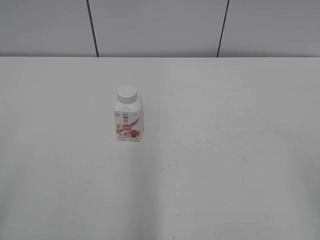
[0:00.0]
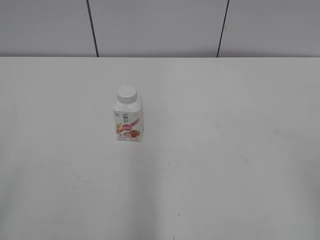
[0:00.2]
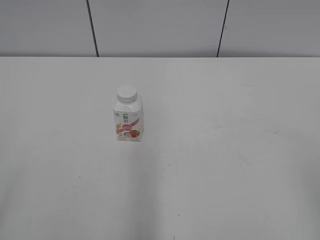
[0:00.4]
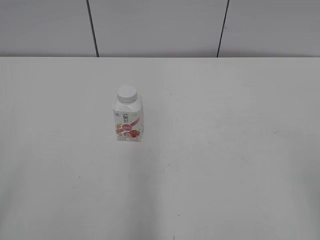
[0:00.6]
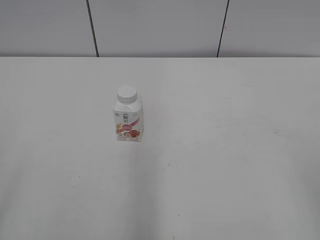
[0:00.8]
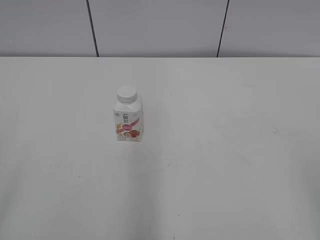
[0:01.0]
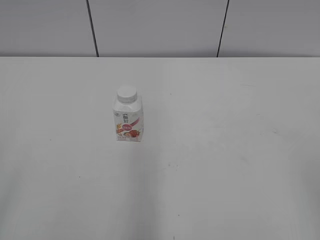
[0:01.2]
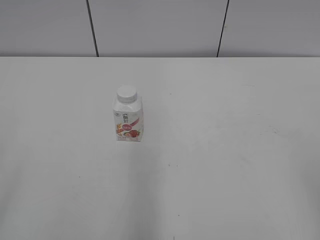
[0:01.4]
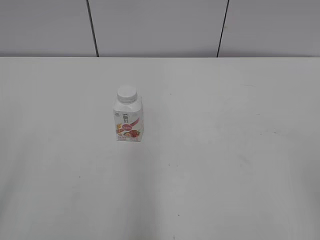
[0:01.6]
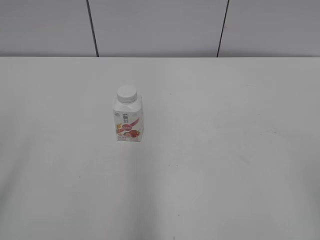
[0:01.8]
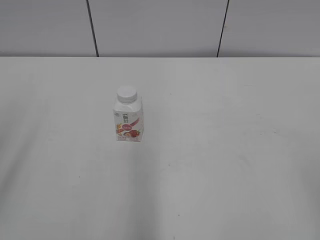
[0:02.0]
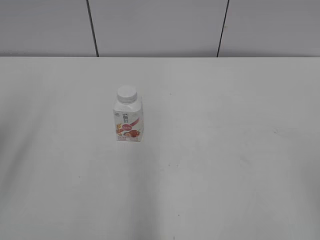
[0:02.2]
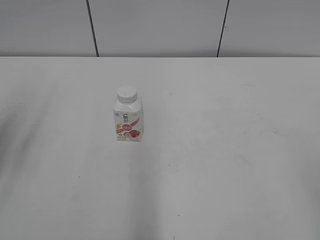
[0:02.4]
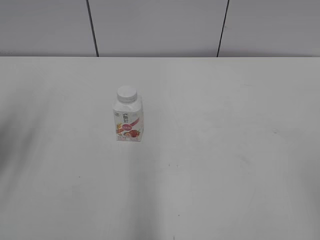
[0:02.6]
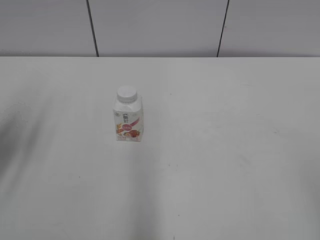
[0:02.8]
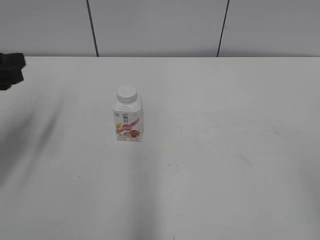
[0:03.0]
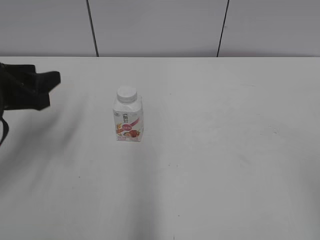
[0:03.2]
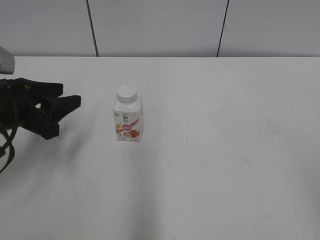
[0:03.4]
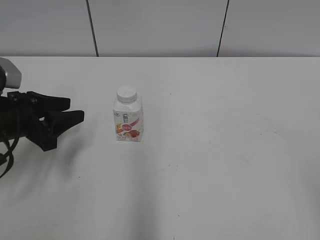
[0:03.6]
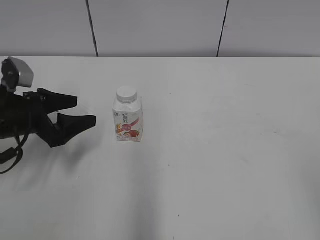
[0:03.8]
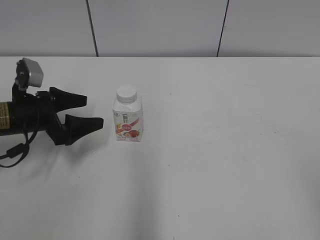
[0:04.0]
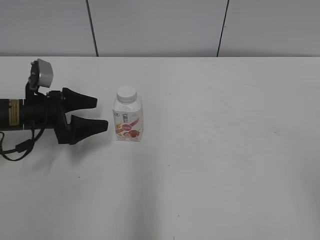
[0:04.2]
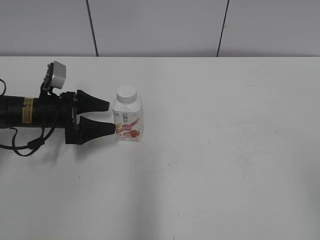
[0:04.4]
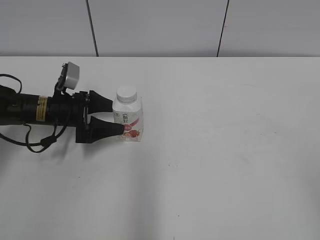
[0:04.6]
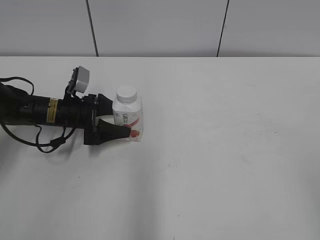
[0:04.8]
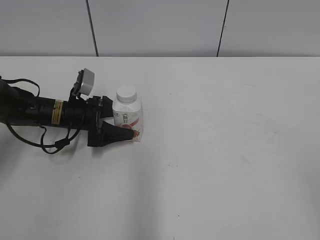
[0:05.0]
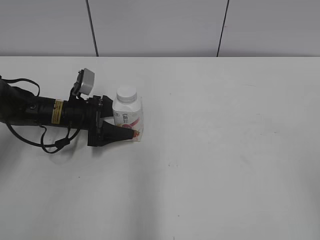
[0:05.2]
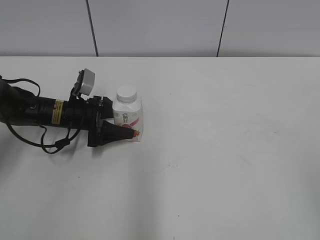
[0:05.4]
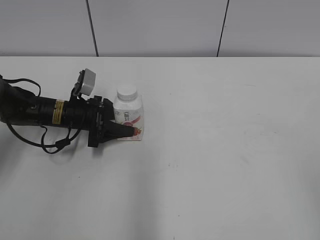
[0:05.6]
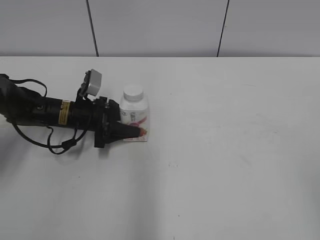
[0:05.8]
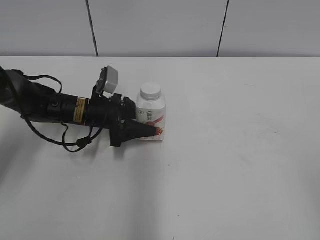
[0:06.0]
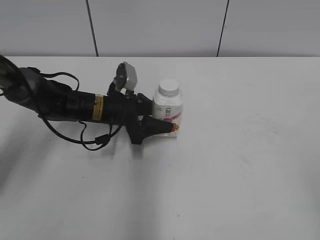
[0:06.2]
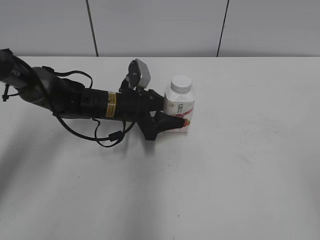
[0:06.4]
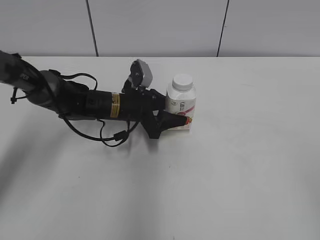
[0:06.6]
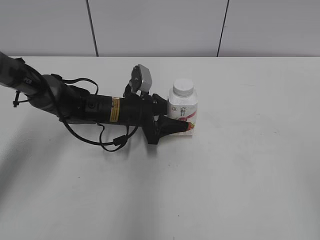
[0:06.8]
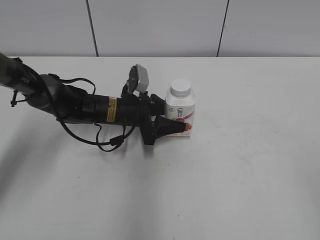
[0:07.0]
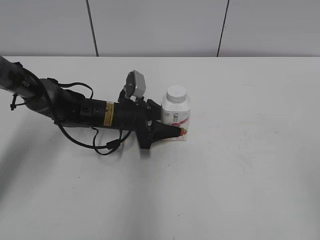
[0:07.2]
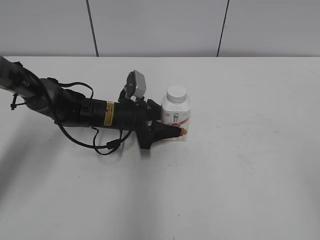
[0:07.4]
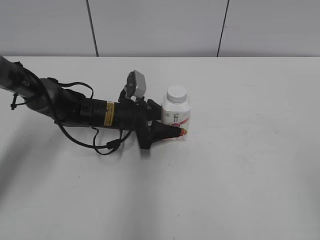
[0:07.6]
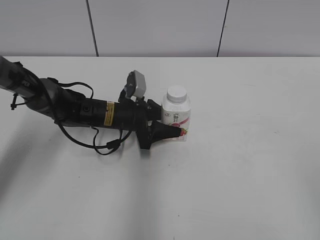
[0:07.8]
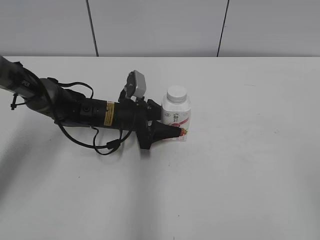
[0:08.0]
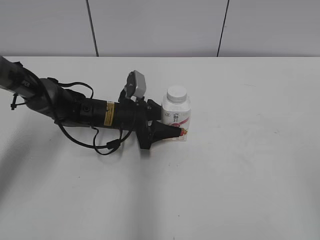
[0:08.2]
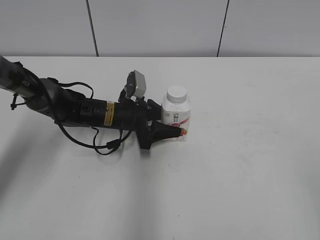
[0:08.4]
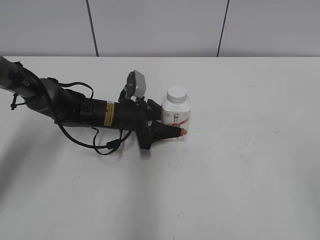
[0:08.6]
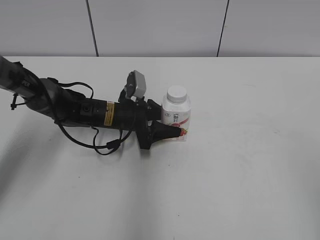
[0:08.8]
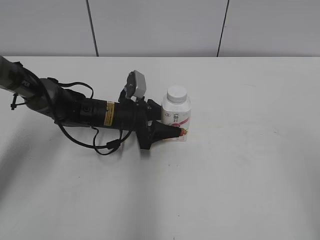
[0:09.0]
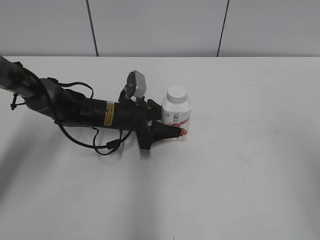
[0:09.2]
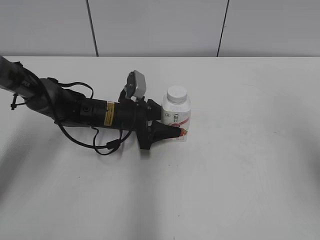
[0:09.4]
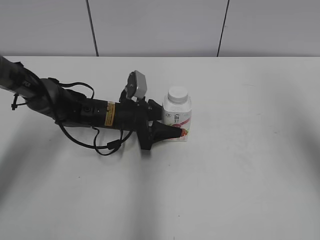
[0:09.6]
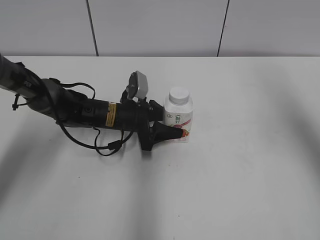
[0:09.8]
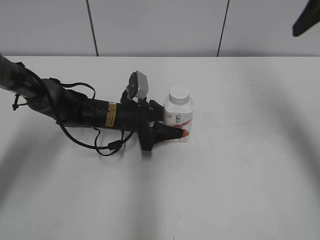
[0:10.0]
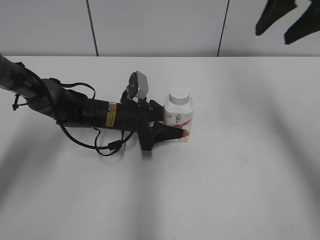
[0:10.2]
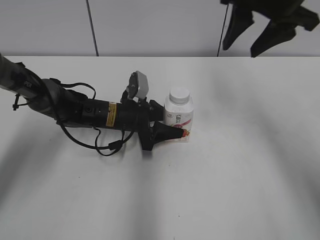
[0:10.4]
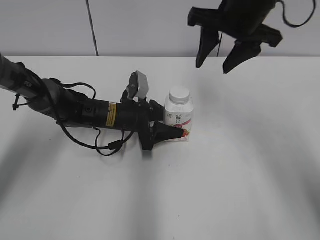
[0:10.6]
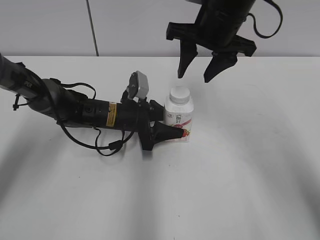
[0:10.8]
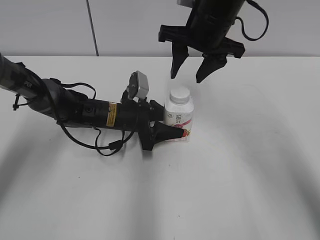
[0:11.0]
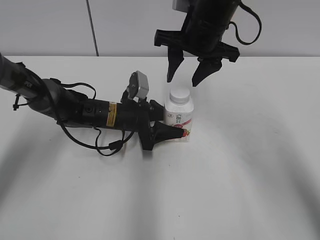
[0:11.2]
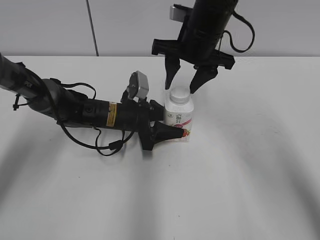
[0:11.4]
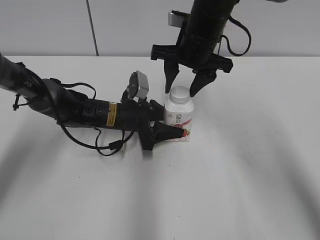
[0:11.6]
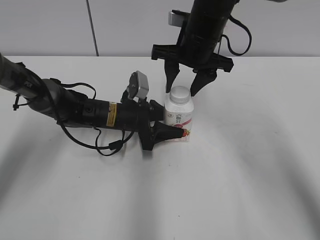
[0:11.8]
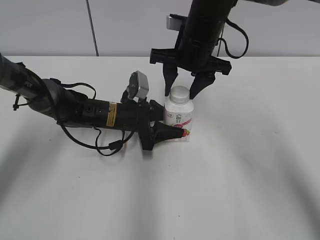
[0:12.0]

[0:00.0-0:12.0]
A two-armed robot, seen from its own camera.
Step, 0:00.0 to 0:05.4: Grab the Yili Changqing with the left hand.
Step, 0:05.8 to 0:07.0: Move the Yili Changqing from left to right.
0:01.6 to 0:03.0: The left gripper heads forward, covering about 25 cm.
0:03.0 to 0:04.4: The left gripper is displaced downward and forward by about 20 cm, and opens up.
0:04.4 to 0:06.0: The left gripper travels to the right by roughly 10 cm, and closes.
0:06.0 to 0:07.6: The left gripper is displaced to the right by roughly 5 cm.
0:09.0 to 0:10.4: The right gripper travels forward by approximately 30 cm.
0:10.4 to 0:12.0: The right gripper is displaced downward and to the left by roughly 15 cm.

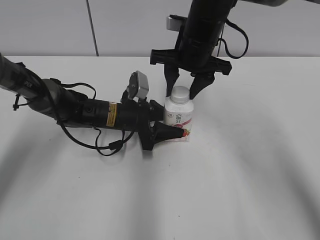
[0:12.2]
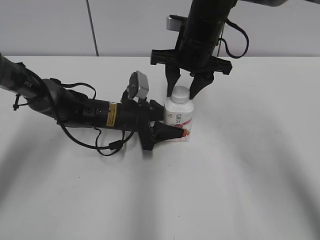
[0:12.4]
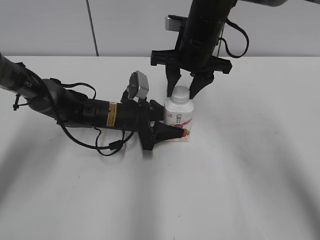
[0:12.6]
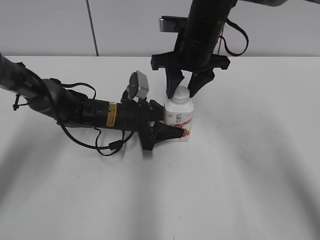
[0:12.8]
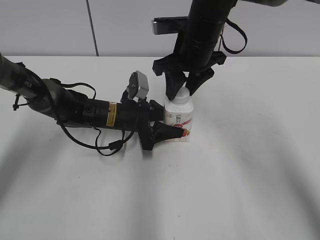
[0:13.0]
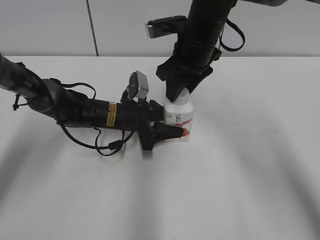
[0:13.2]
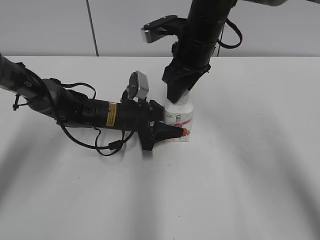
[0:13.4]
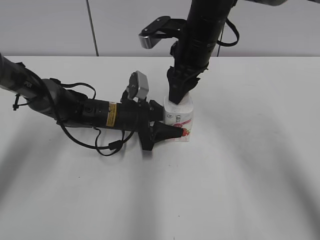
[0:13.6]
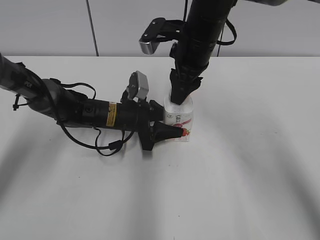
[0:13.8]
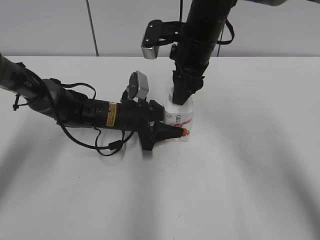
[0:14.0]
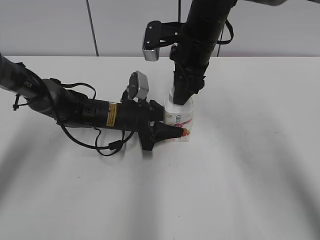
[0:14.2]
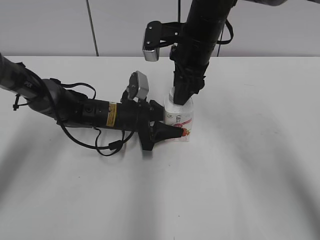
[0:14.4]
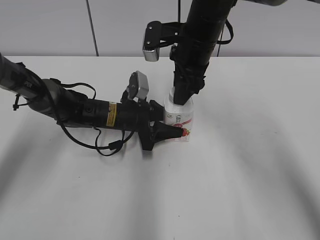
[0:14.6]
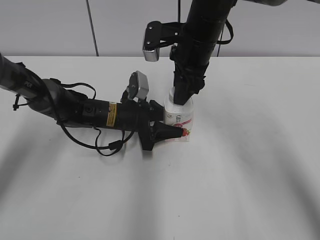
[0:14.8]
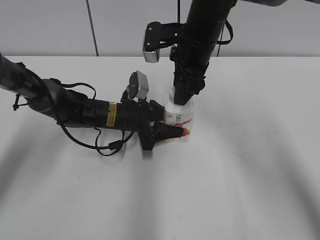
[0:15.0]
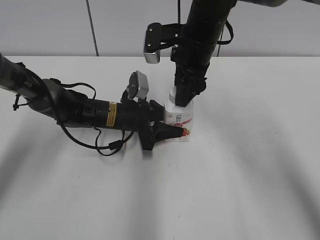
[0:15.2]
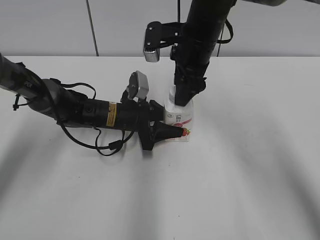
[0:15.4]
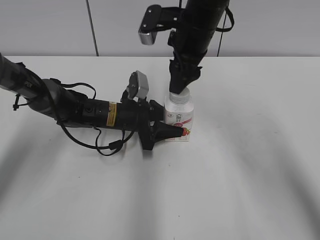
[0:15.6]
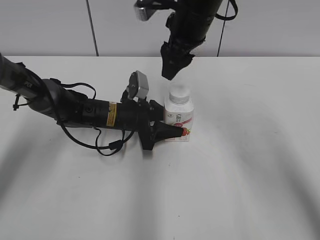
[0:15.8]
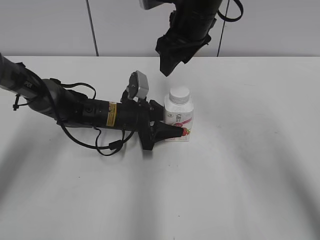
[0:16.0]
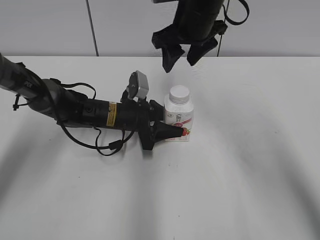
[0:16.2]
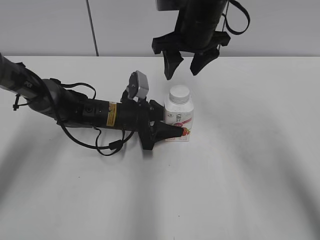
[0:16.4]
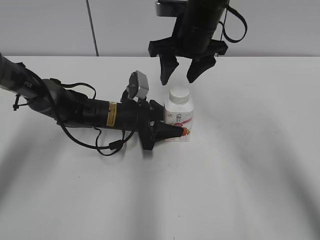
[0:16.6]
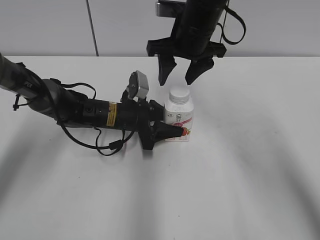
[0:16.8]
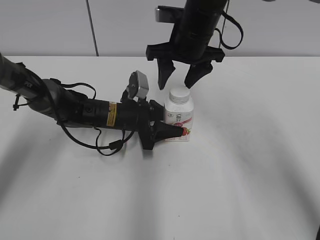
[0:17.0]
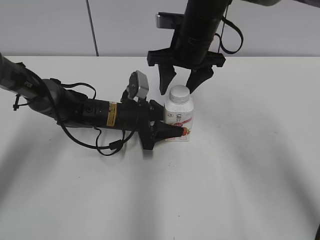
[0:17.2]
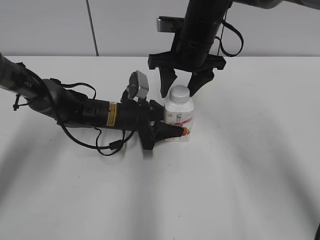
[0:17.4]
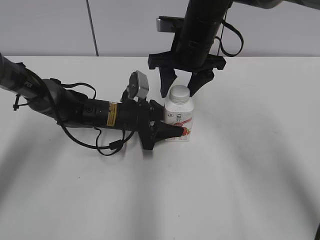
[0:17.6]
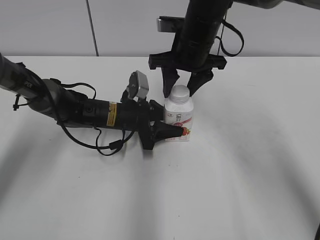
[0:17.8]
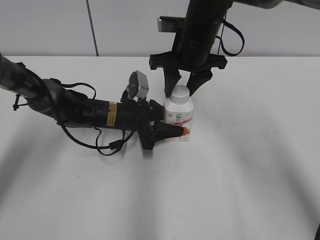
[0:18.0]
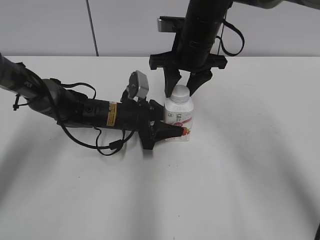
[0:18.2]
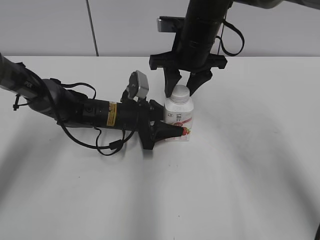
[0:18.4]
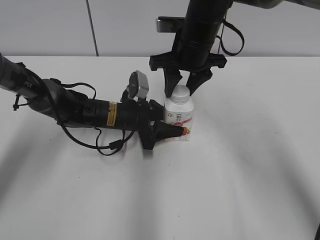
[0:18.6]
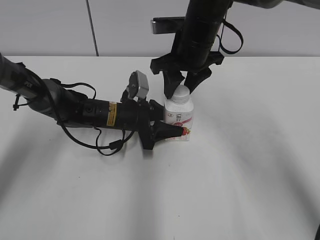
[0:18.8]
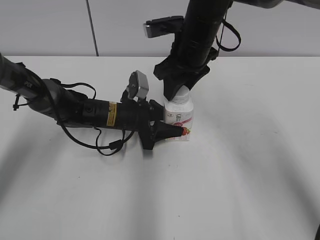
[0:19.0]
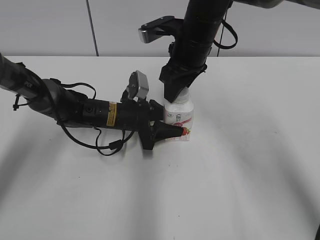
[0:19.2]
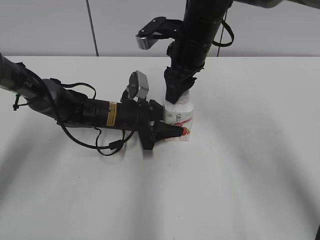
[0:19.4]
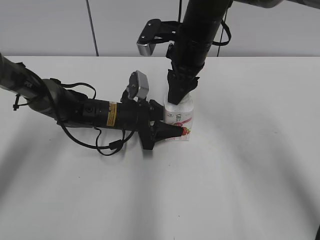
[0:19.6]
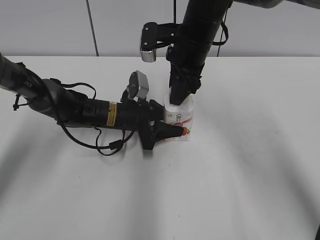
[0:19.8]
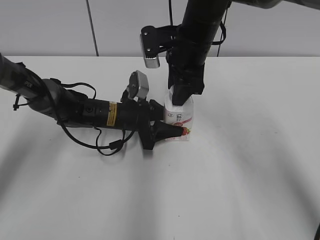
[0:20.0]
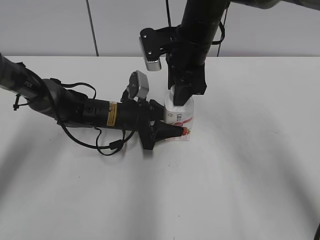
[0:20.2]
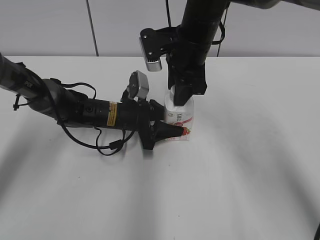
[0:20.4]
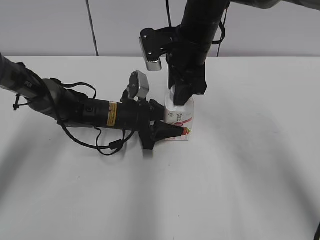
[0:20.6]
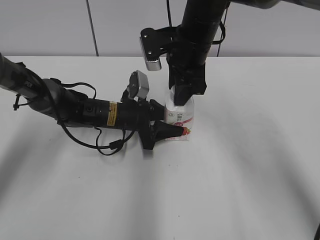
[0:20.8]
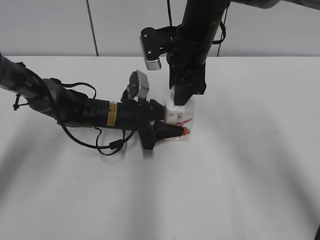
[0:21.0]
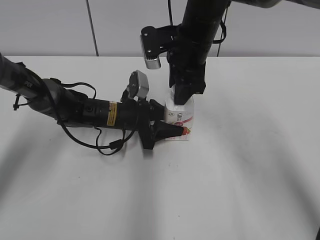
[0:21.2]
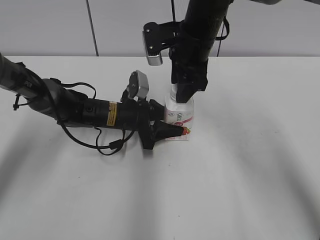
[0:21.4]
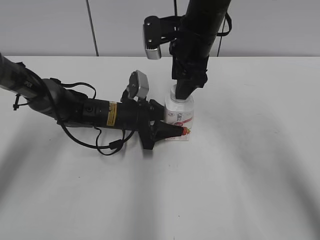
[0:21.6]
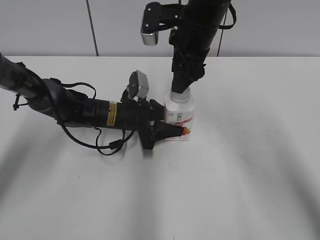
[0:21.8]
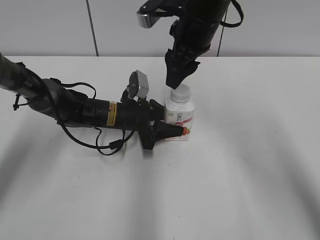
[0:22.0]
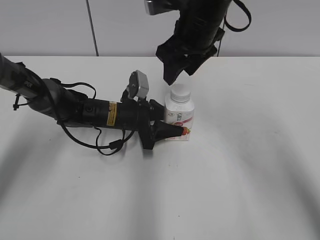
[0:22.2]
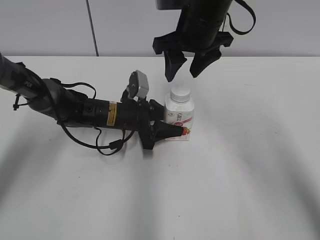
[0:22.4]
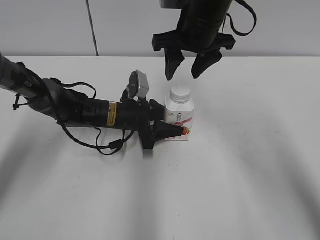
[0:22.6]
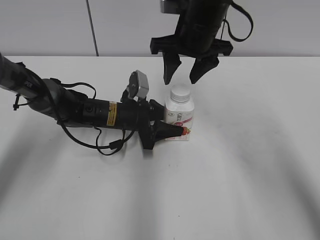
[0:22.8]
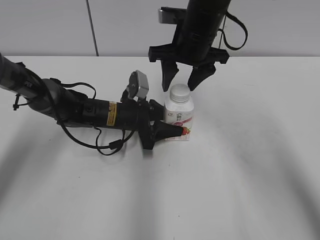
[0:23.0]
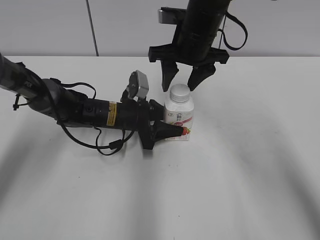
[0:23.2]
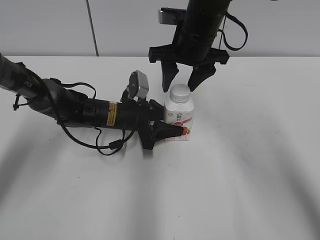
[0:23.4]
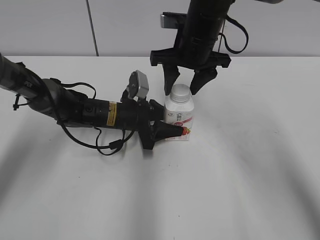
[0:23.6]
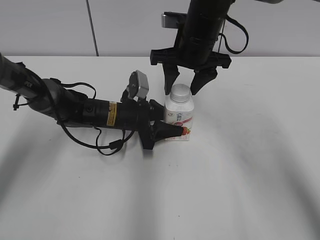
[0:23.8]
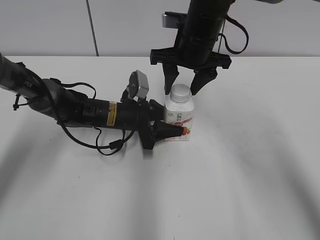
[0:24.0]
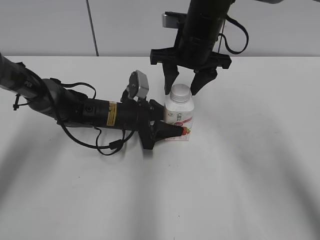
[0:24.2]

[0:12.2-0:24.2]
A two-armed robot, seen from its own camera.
0:12.2 to 0:13.8: The right gripper closes up.
0:13.8 to 0:15.2: The right gripper opens.
0:15.2 to 0:16.6: The right gripper opens its fingers.
0:16.6 to 0:18.2: The right gripper closes up.
0:19.8 to 0:21.2: The grippers stay close to where they were, moving slightly.
0:21.2 to 0:22.6: The right gripper opens.
0:22.6 to 0:24.2: The grippers stay close to where they were, moving slightly.
